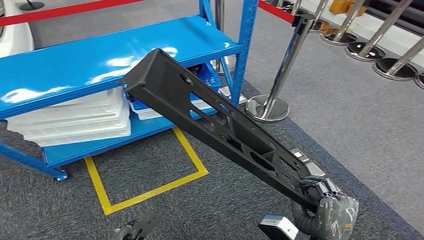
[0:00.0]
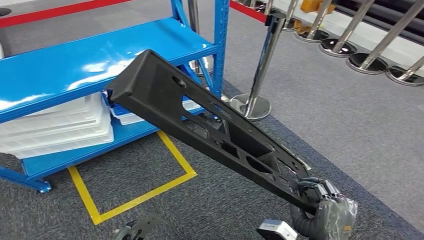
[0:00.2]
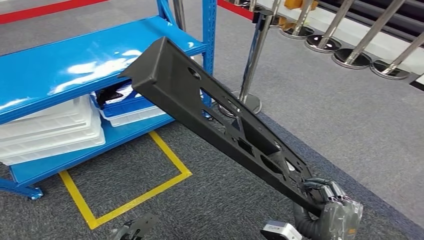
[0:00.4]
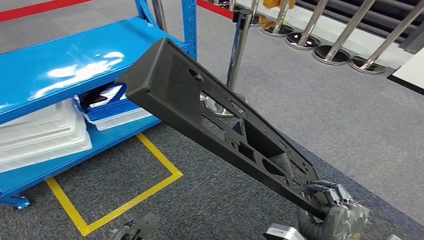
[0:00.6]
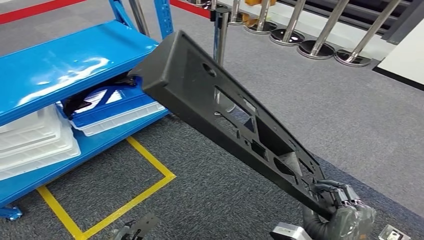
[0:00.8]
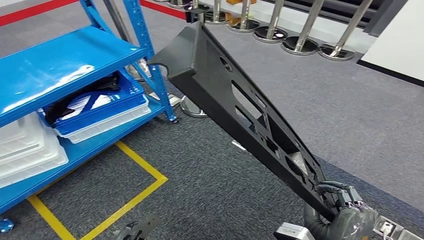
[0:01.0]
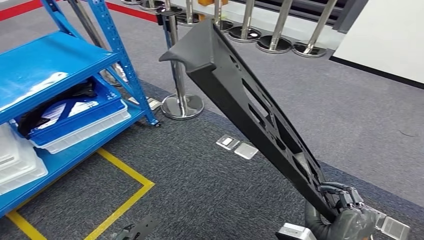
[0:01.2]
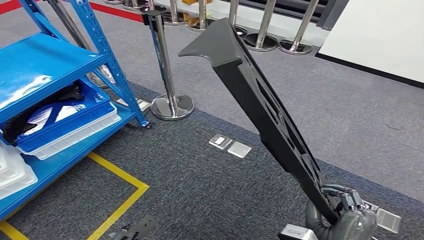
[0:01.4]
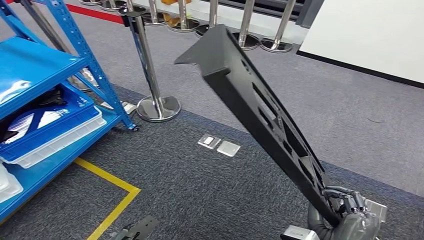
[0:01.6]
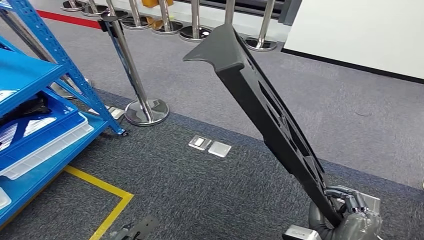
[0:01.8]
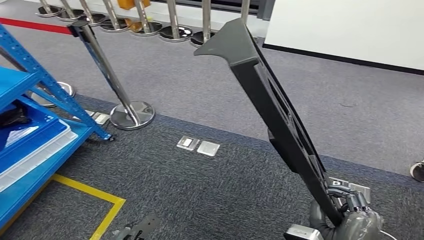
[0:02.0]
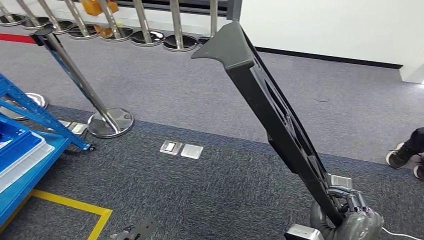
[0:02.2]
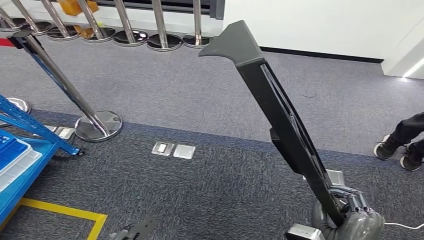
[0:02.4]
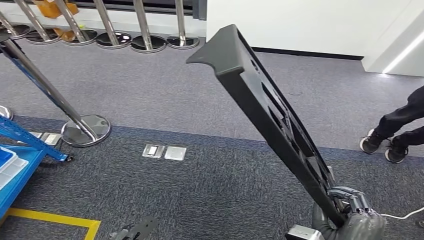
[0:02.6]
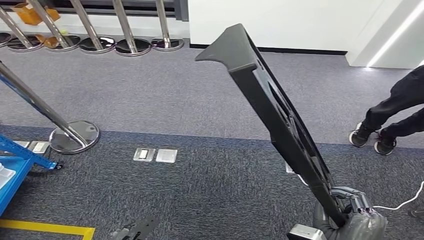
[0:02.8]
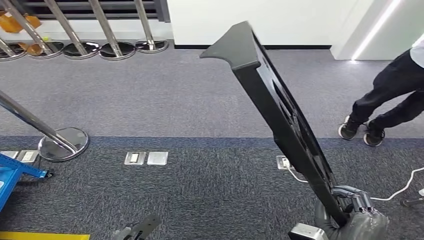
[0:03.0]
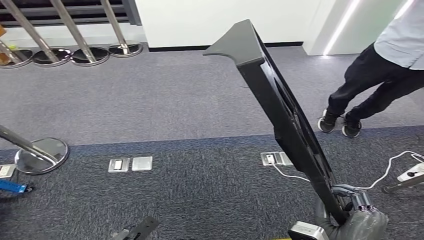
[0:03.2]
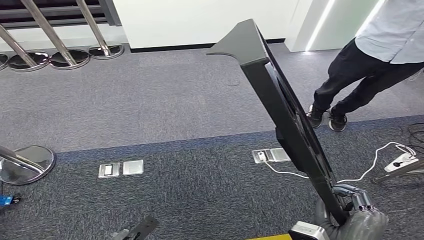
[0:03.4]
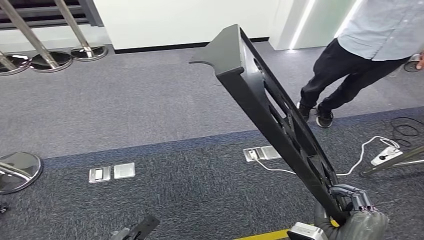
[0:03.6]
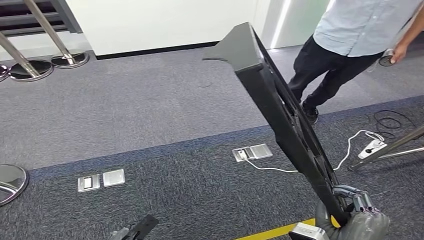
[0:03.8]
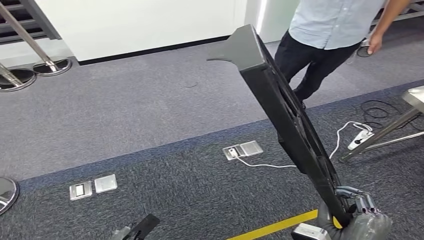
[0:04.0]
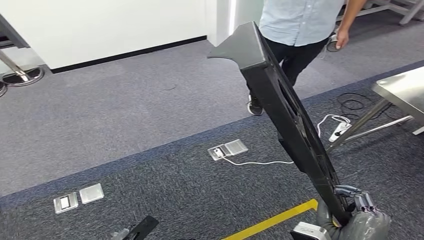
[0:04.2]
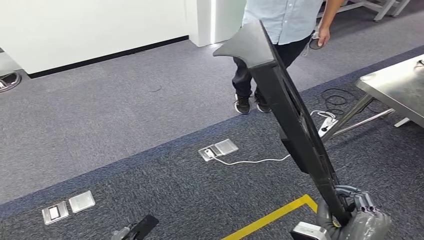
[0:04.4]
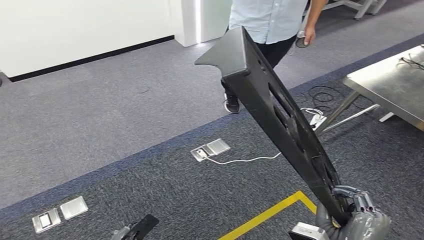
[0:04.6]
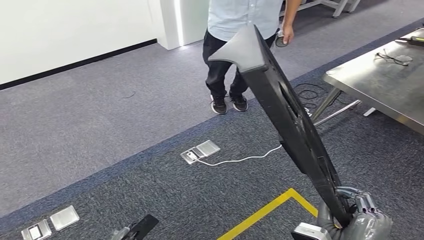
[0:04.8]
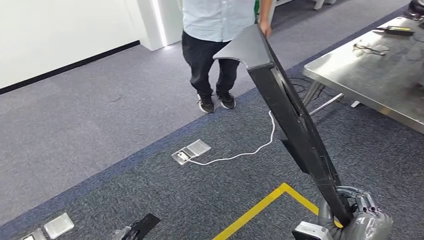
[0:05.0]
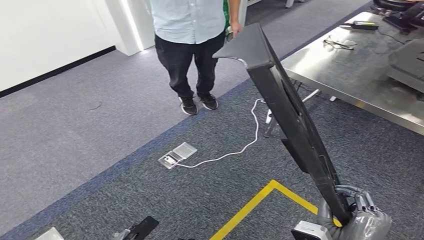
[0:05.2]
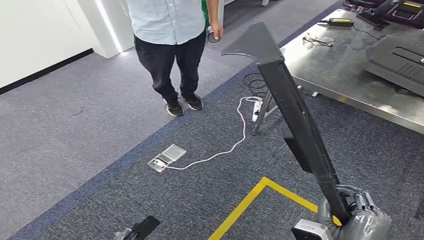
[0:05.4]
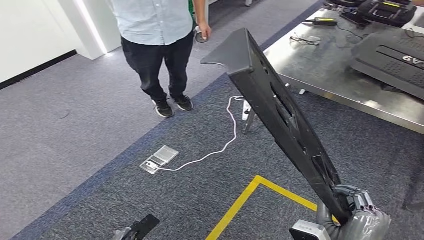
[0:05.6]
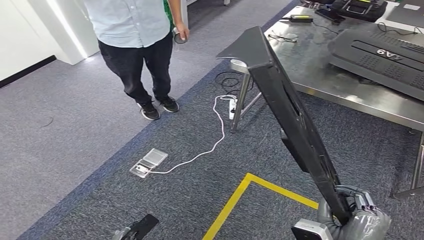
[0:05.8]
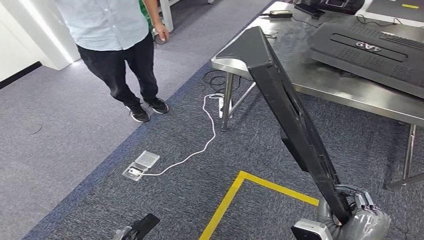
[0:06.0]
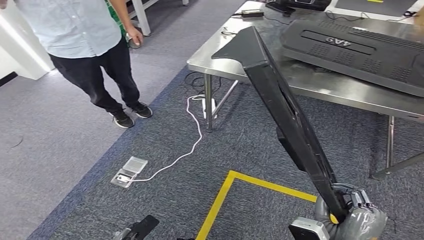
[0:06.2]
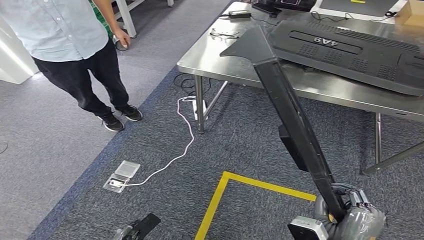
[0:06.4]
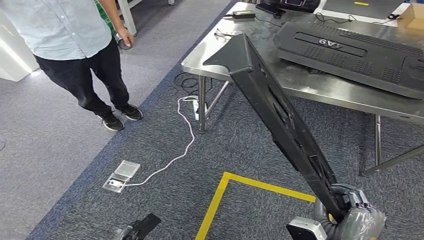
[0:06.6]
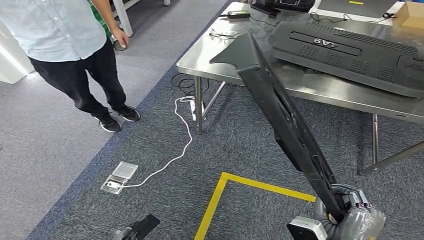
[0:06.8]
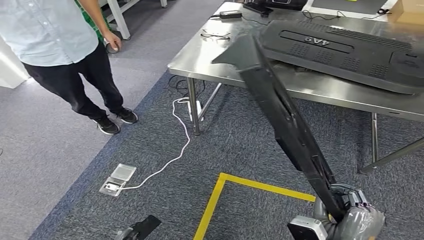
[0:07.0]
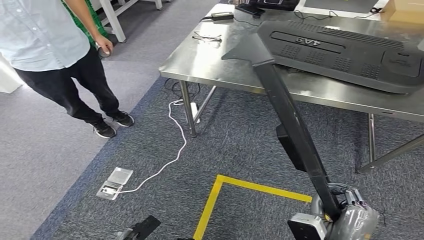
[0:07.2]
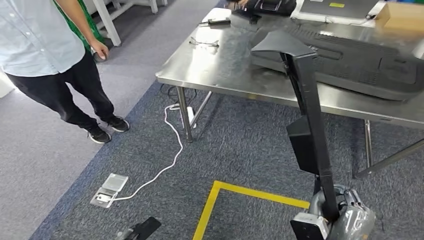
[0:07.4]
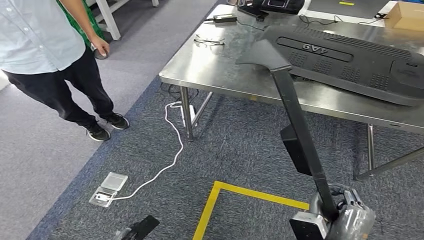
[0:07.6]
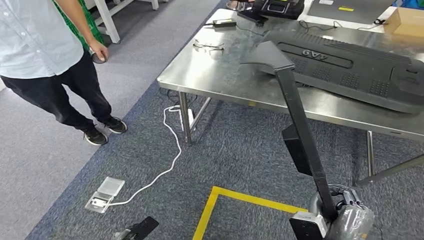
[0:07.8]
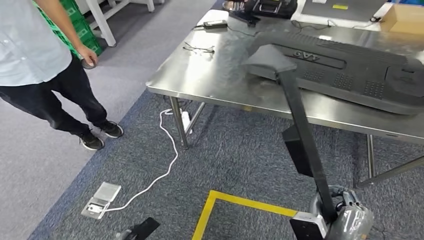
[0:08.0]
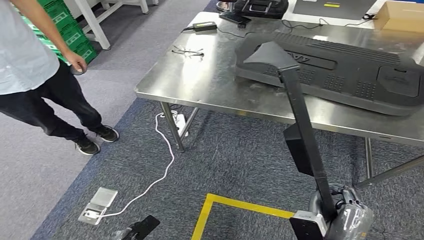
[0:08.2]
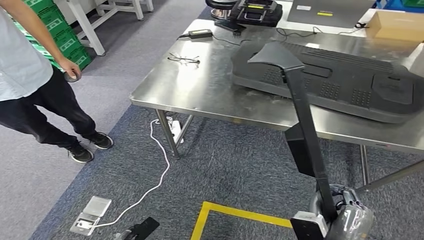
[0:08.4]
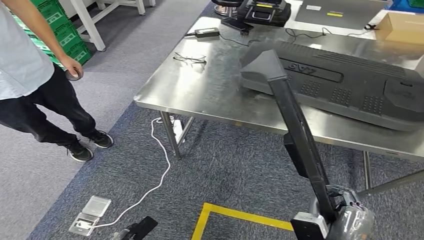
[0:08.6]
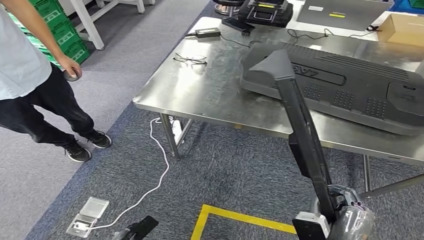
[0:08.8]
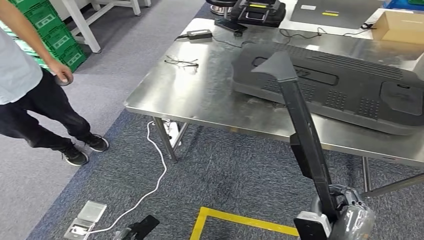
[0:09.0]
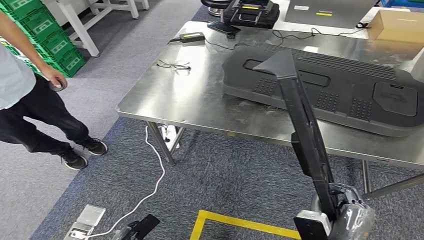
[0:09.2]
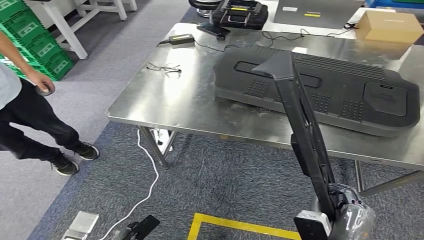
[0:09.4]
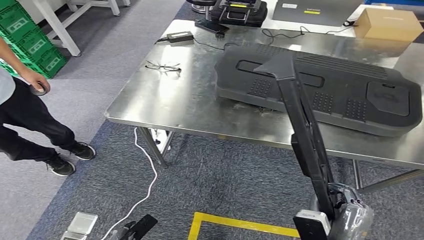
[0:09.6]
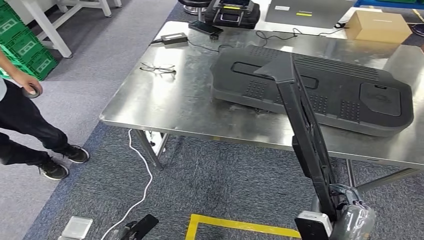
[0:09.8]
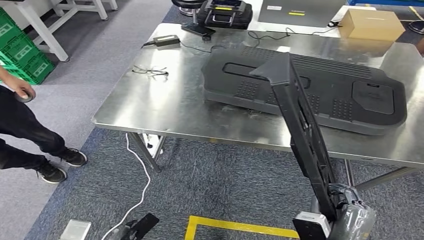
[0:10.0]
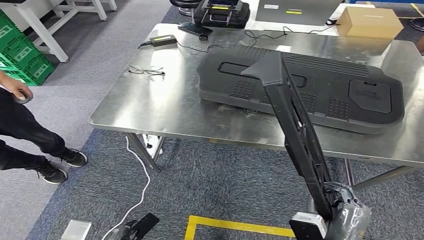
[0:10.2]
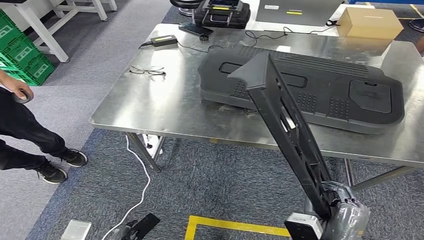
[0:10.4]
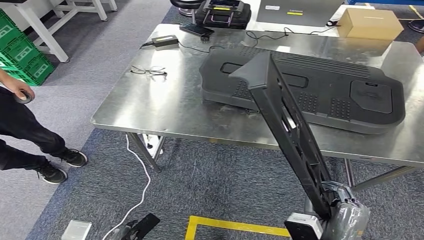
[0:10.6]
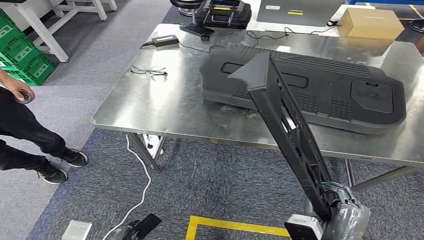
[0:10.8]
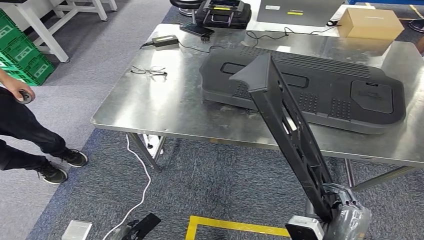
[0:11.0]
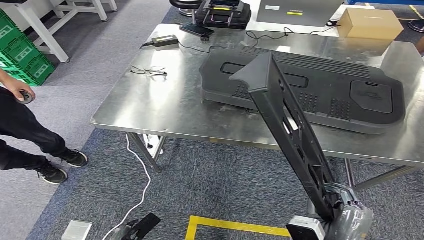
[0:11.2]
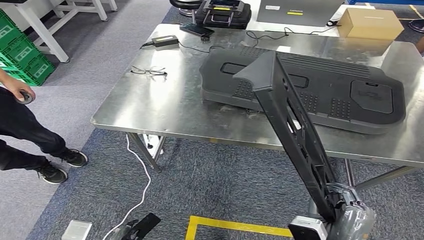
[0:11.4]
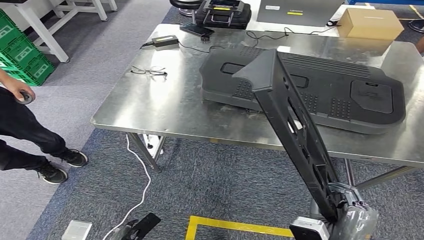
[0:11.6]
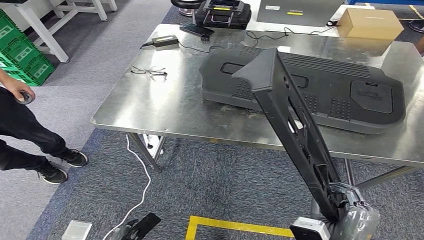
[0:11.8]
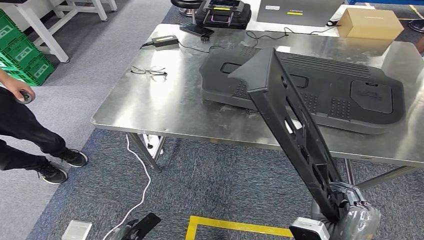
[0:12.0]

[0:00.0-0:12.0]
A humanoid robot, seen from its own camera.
Step, 0:00.0 to 0:11.2: Move the large material to the front of the workbench.
0:10.4 to 0:12.0: The two hands keep their place.

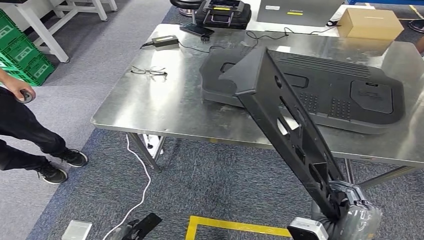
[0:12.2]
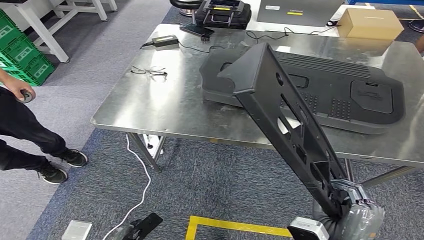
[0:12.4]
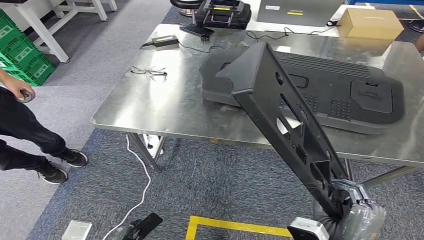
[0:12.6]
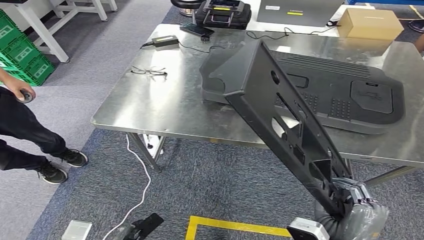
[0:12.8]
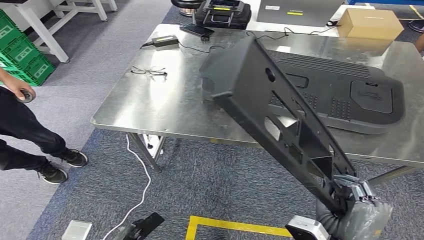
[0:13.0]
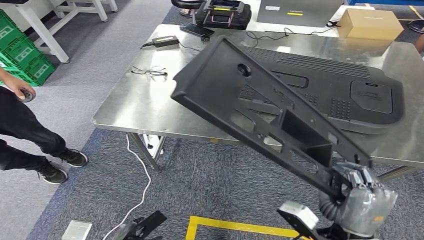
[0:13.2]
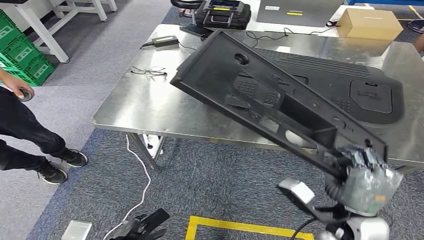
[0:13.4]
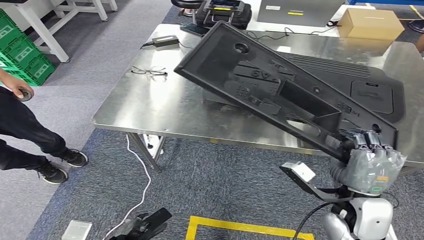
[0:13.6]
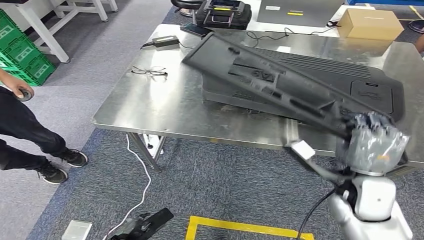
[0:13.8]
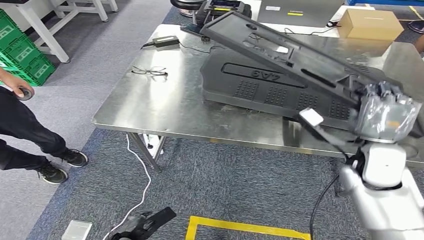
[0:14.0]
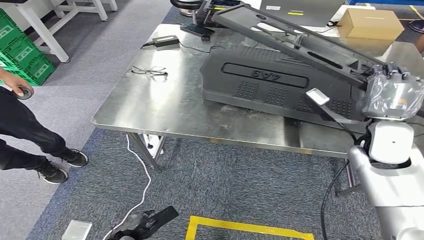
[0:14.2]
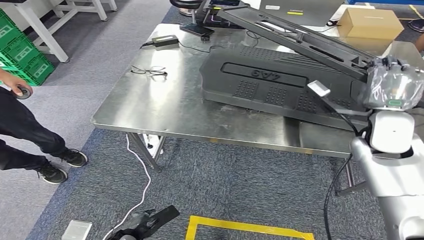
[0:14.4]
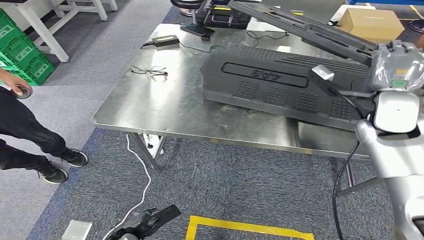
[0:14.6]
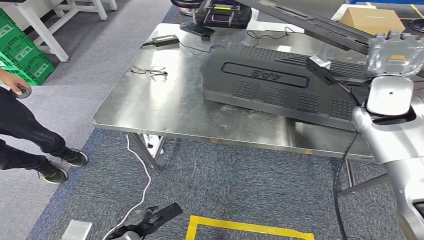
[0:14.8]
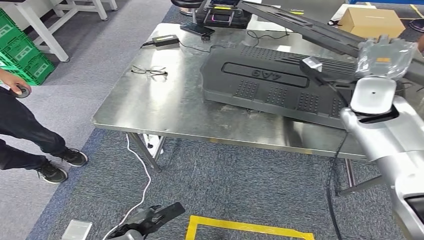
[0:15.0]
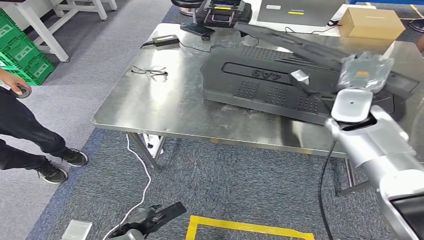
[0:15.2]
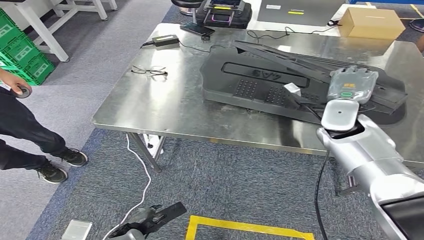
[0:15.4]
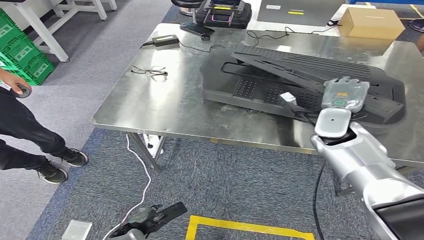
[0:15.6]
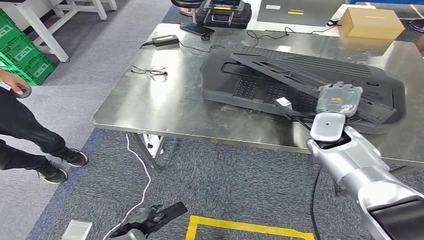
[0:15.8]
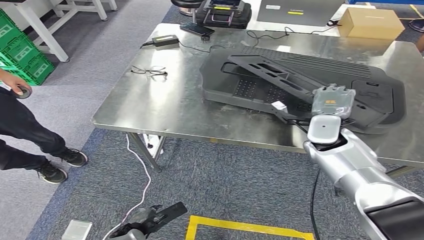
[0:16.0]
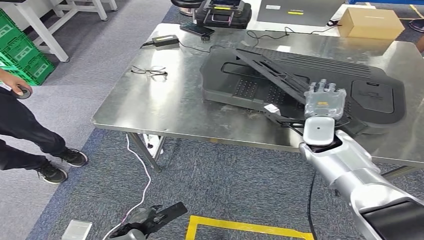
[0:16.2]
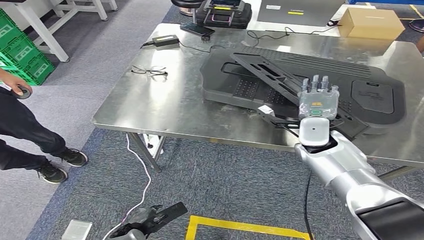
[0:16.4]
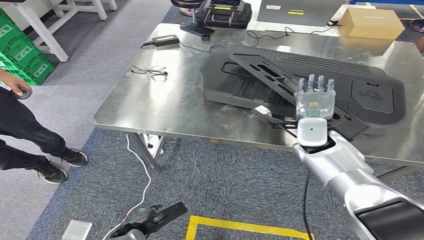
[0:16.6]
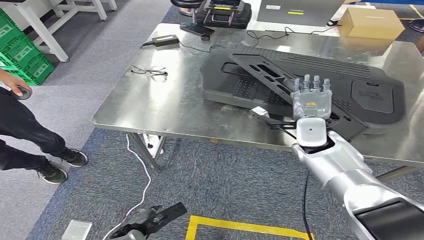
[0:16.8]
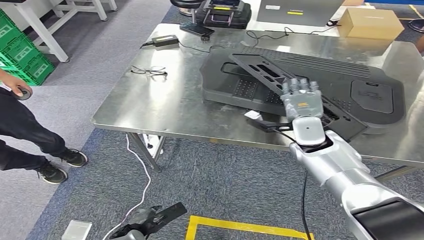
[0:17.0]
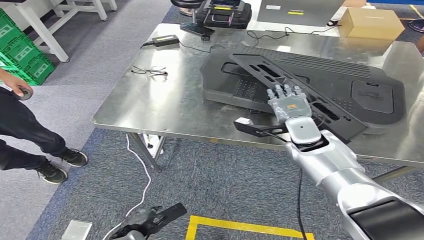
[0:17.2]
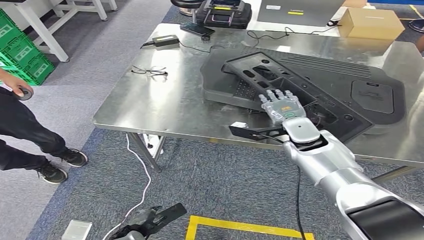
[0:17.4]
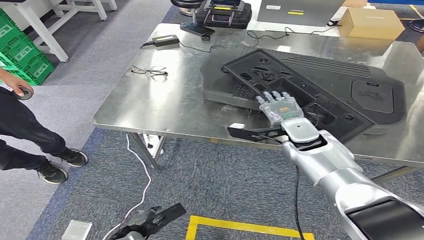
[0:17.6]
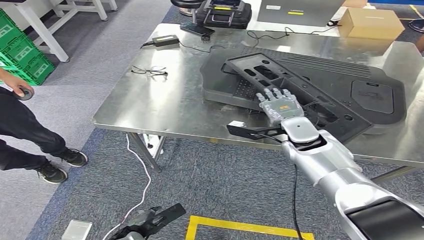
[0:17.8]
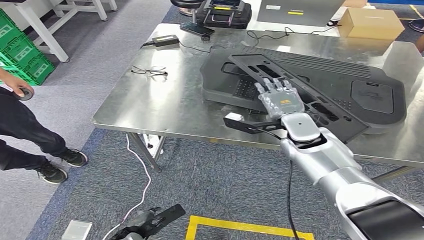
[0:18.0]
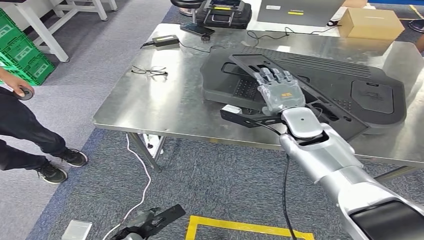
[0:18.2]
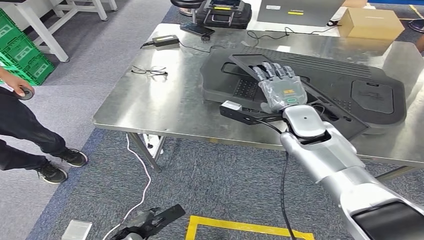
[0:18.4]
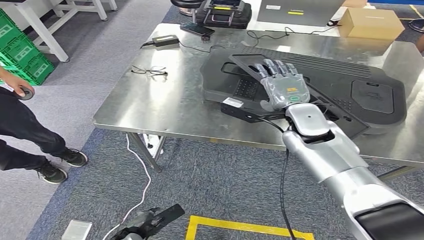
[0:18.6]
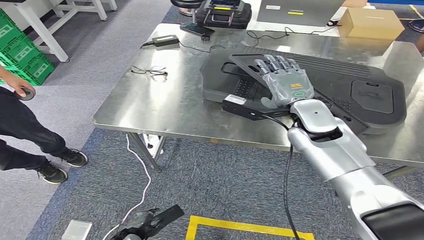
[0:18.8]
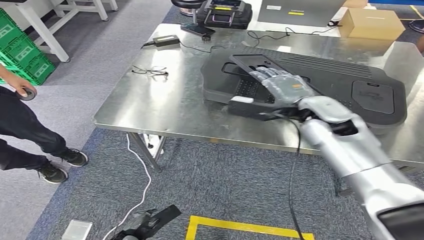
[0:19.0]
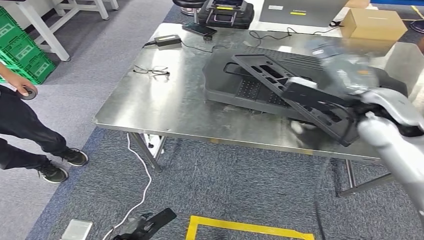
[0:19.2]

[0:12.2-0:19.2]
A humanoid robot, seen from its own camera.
Step, 0:12.2 to 0:18.8: Insert the large material into the corresponding hole on the workbench.
0:12.2 to 0:13.6: The right hand moves forward and upward, roughly 15 cm.
